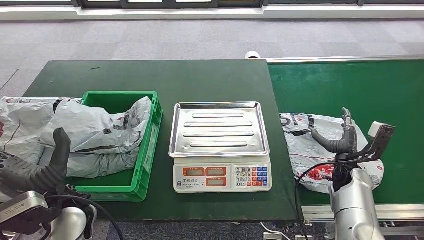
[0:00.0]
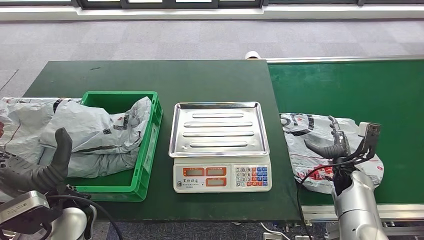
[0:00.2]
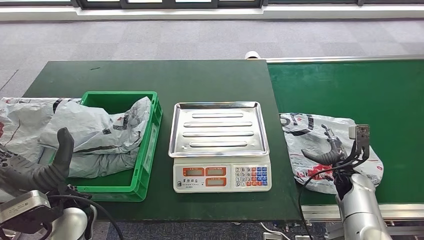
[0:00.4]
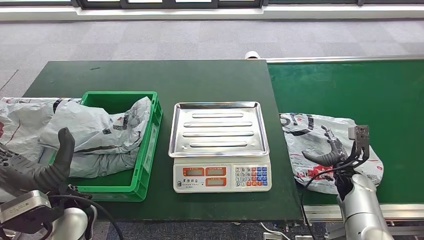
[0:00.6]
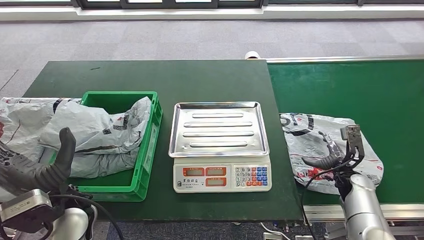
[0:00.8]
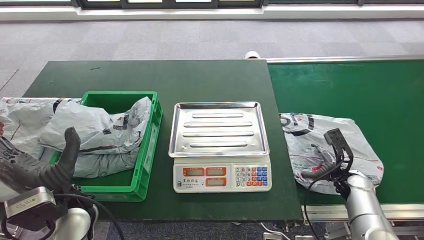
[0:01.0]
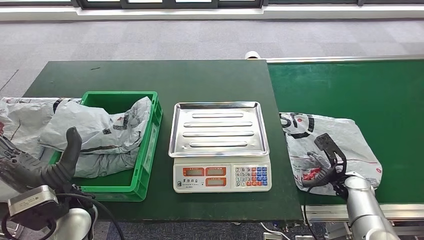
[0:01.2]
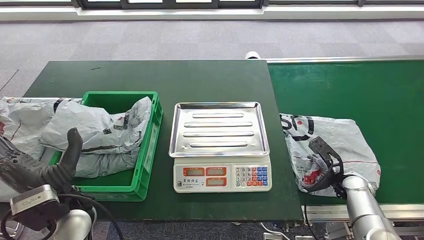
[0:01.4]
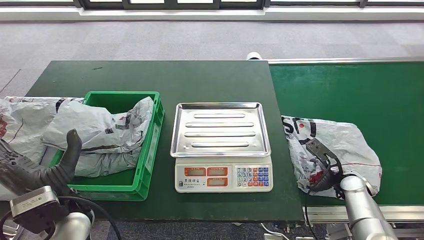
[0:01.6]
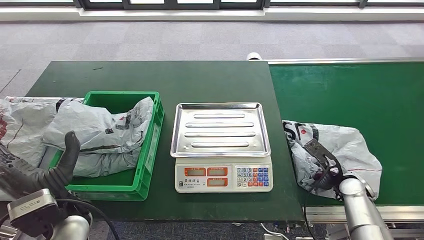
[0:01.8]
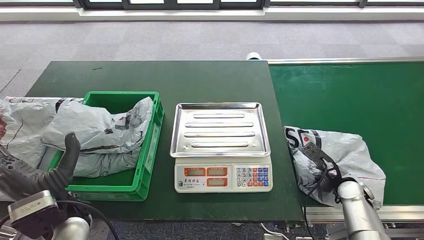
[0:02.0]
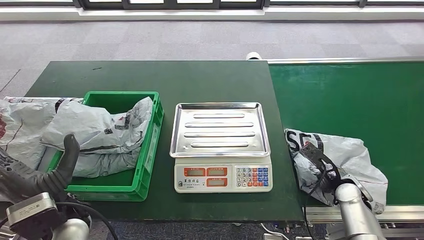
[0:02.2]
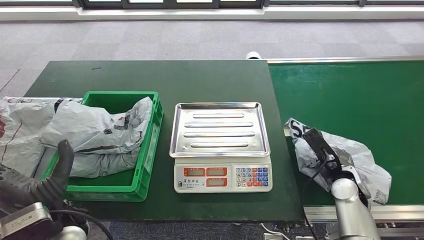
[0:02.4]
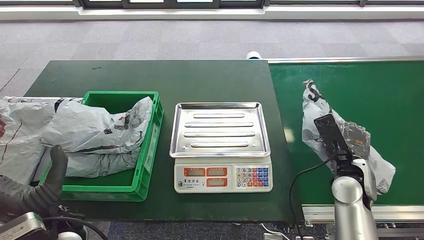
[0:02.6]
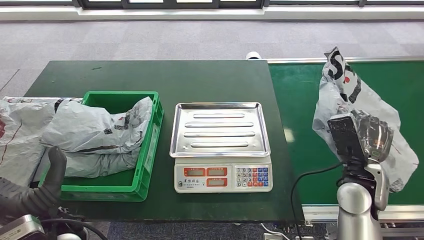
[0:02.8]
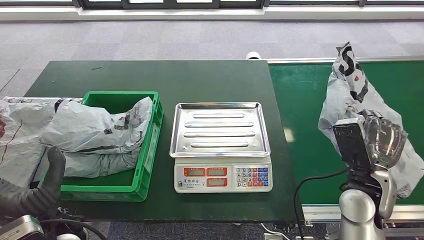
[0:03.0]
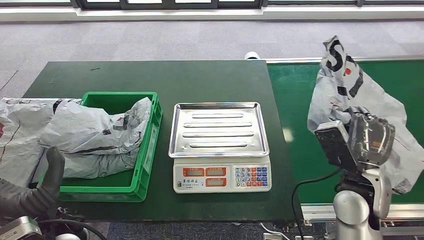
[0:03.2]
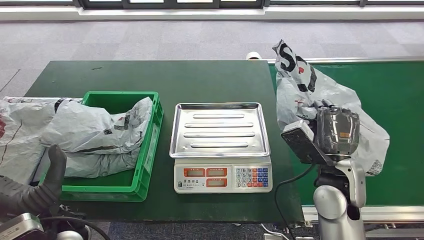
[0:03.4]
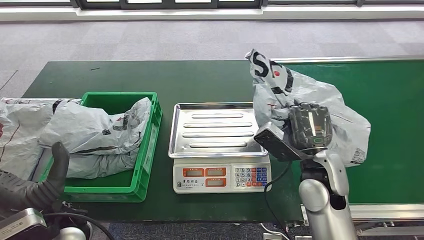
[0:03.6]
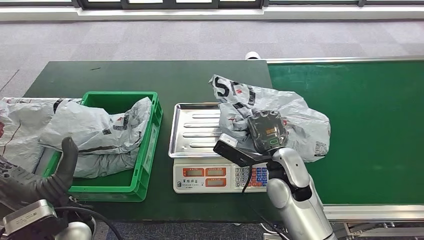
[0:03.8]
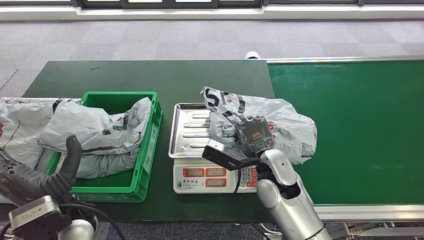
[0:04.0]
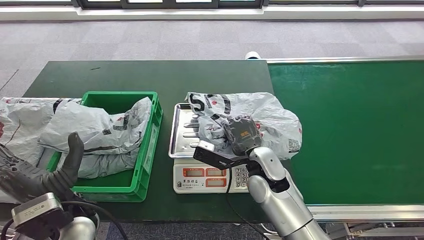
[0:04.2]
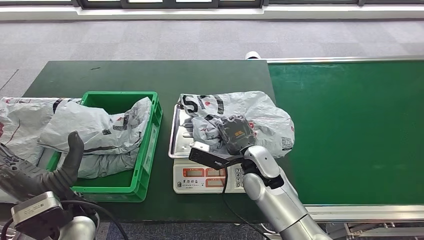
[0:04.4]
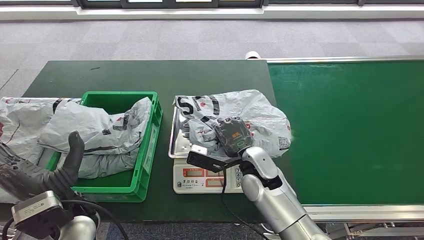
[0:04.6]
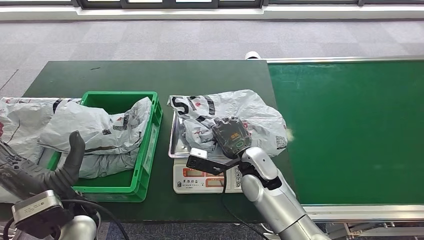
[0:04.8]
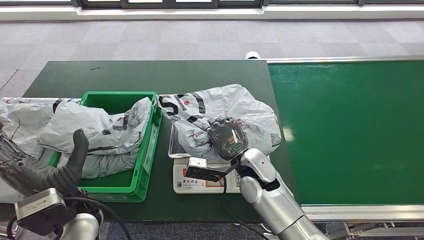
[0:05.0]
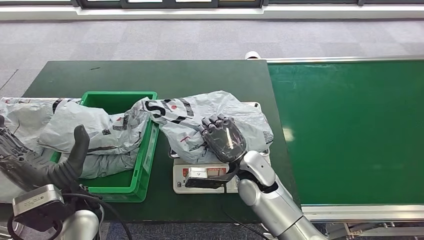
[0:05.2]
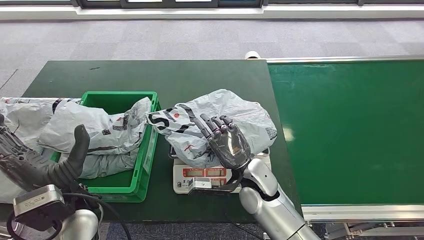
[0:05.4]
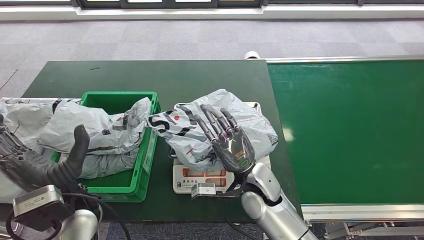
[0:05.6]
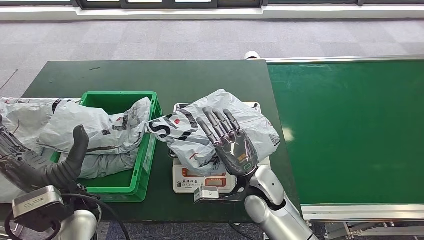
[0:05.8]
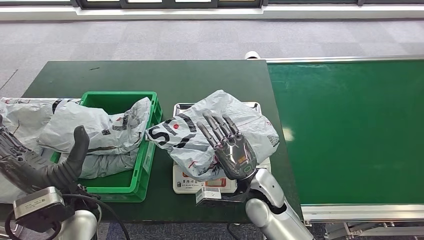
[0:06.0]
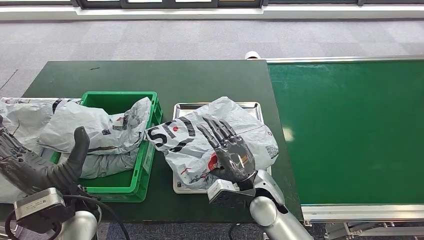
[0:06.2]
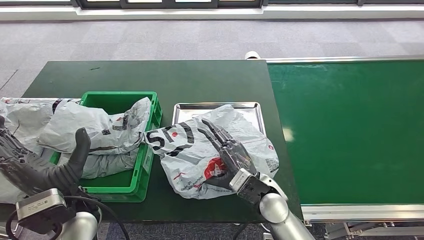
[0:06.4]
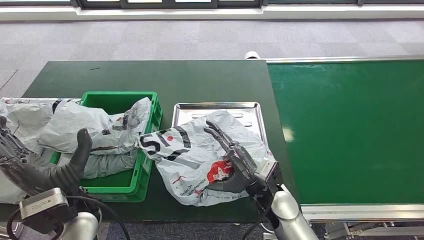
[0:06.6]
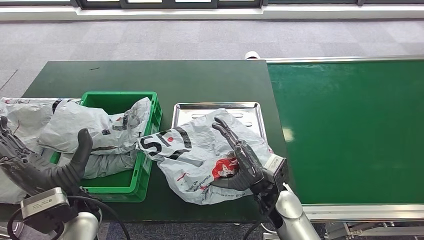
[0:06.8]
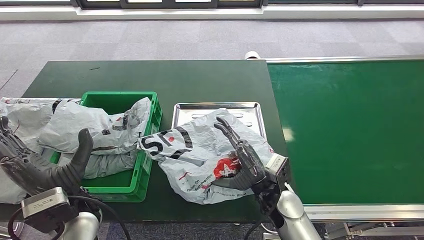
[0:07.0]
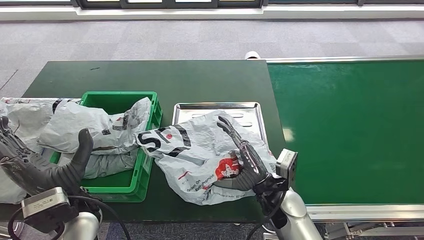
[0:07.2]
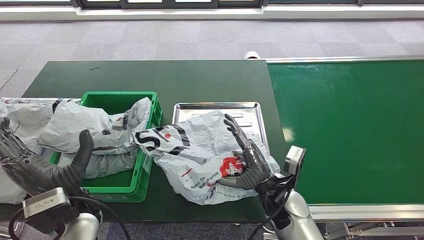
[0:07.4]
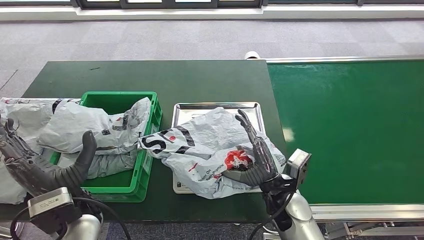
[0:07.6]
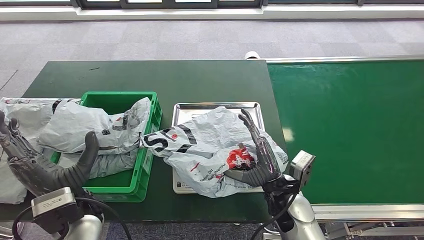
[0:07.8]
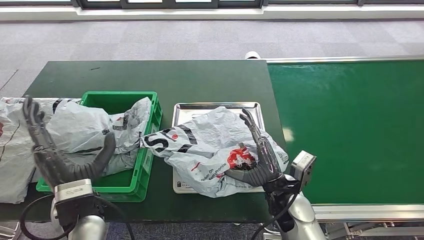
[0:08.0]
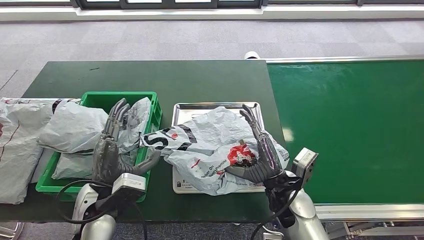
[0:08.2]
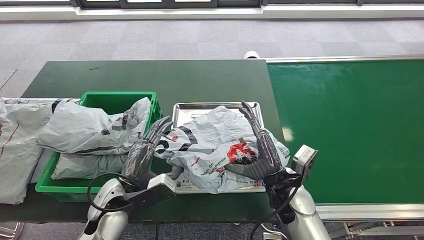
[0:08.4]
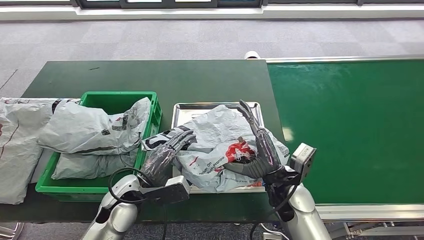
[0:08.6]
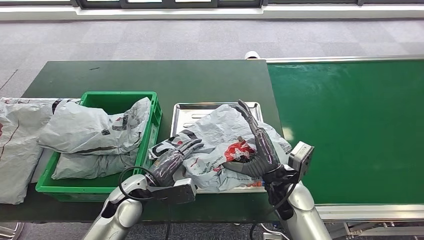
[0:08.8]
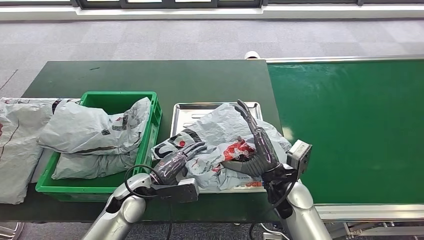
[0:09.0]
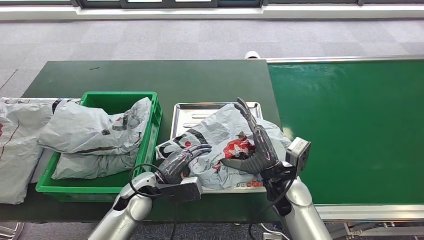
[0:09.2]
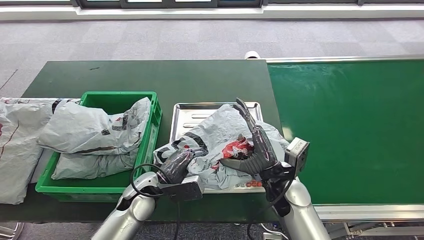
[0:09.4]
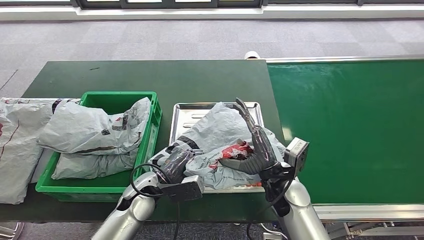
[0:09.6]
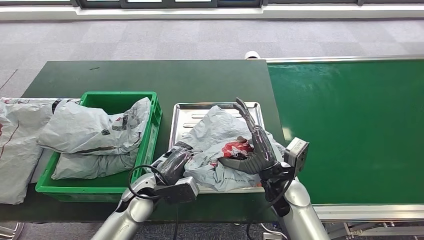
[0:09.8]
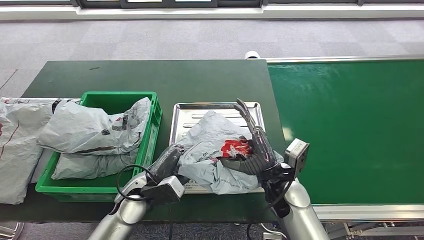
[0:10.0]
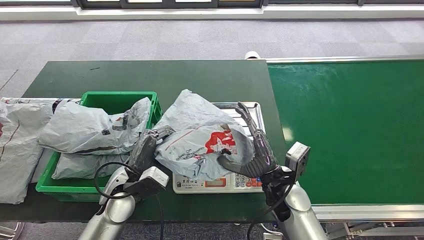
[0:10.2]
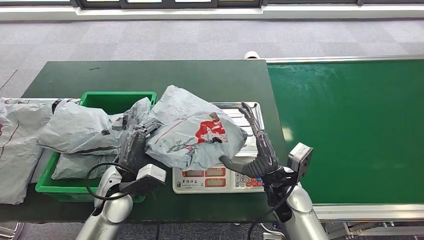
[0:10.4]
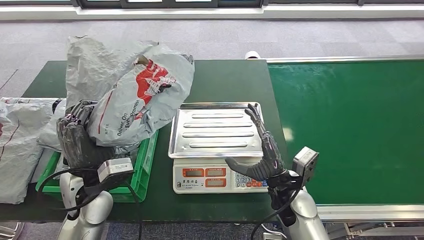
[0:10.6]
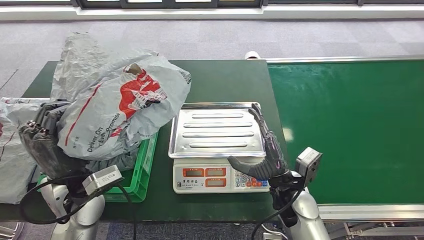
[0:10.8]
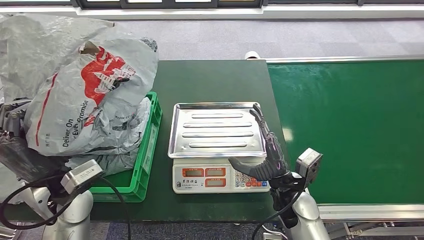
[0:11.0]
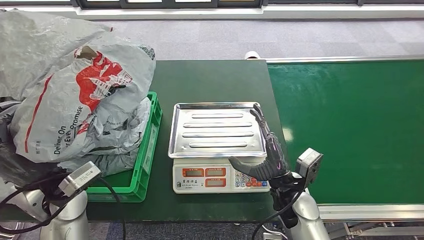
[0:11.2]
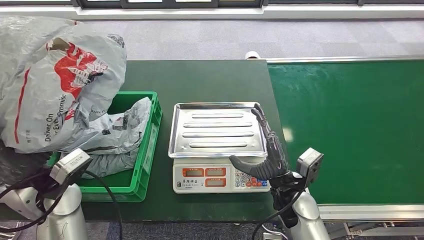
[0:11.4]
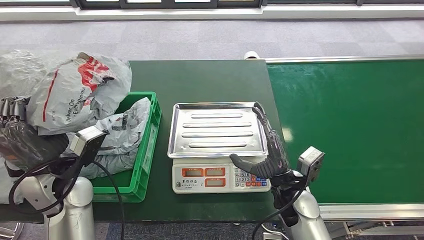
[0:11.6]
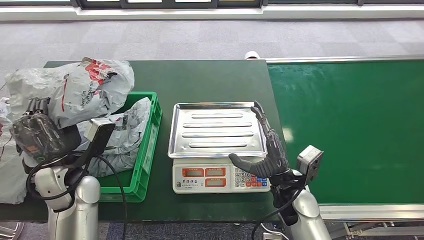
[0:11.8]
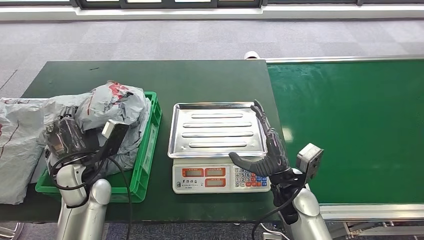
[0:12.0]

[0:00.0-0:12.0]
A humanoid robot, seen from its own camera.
Step, 0:00.0 to 0:03.6: Pick up the parcel from the conveyor belt.
Step, 0:03.8 to 0:08.6: Place the parcel onto the inbound machine.
0:04.4 to 0:06.0: The right hand is displaced backward by some 5 cm.
0:07.6 to 0:09.0: The left hand heads downward, forward and to the right, covering some 15 cm.
0:09.0 to 0:10.4: The left hand changes place by roughly 5 cm.

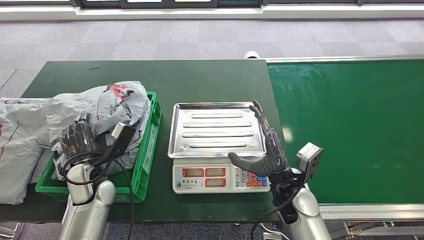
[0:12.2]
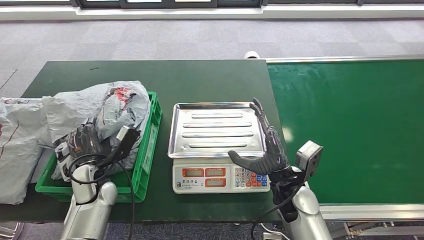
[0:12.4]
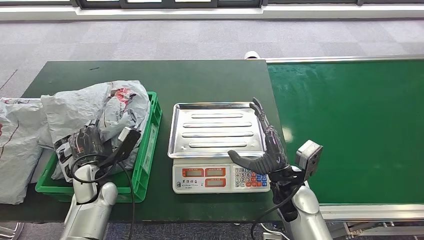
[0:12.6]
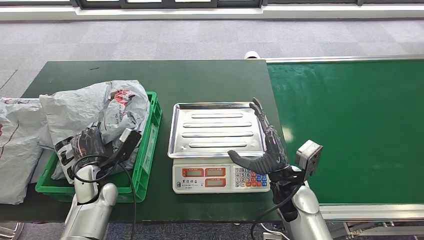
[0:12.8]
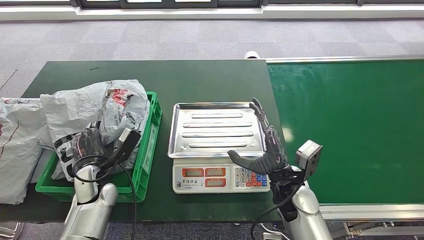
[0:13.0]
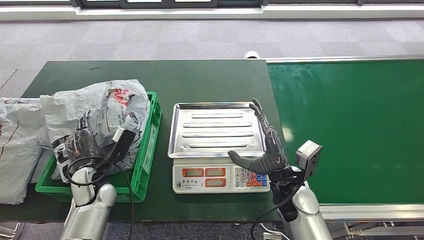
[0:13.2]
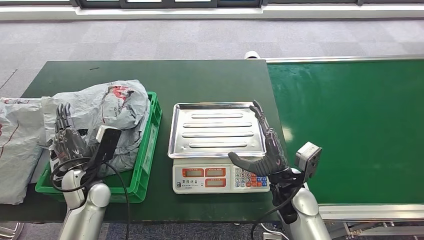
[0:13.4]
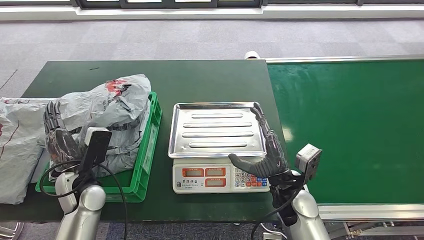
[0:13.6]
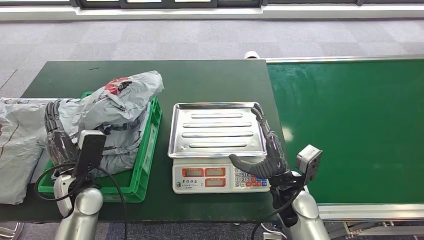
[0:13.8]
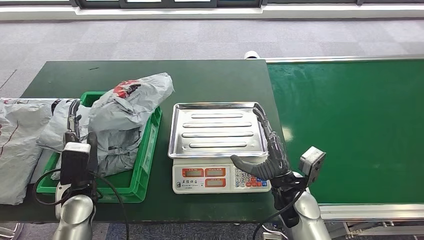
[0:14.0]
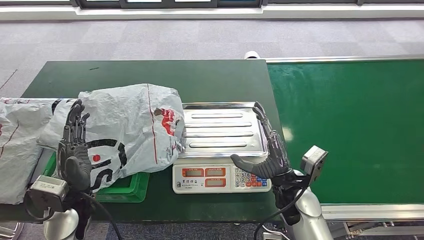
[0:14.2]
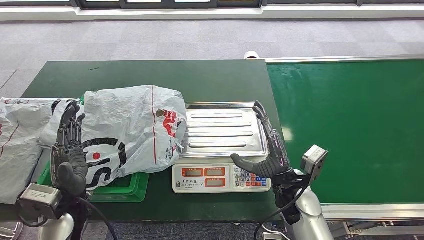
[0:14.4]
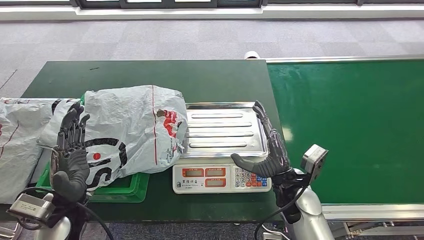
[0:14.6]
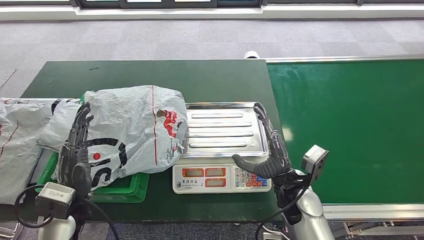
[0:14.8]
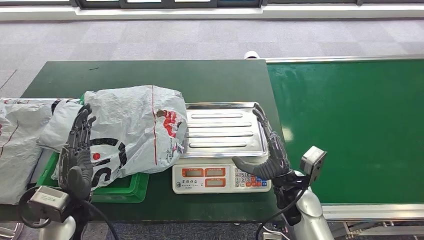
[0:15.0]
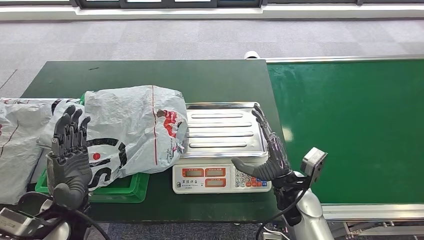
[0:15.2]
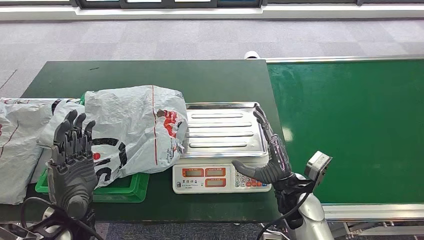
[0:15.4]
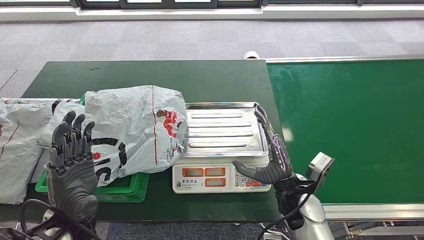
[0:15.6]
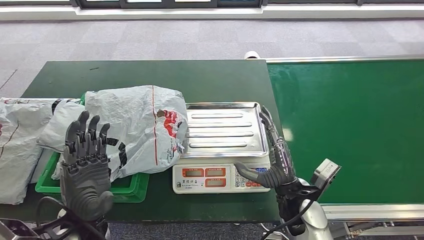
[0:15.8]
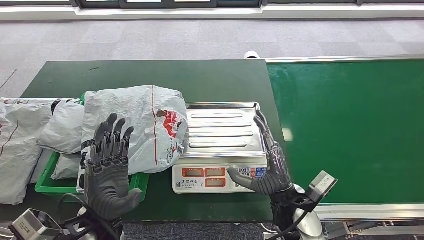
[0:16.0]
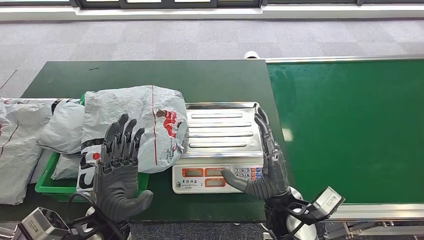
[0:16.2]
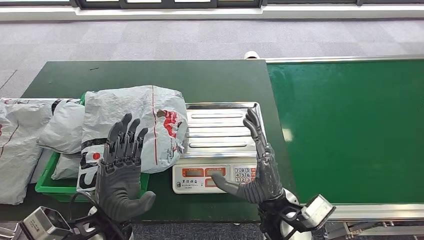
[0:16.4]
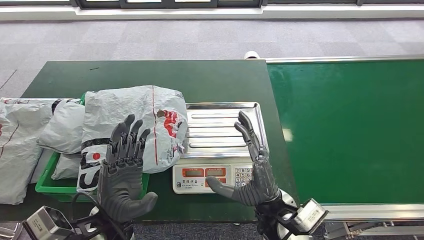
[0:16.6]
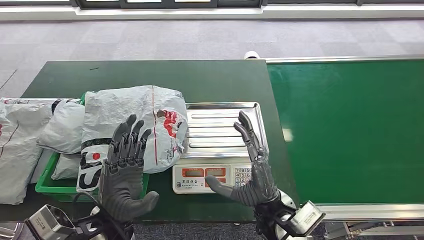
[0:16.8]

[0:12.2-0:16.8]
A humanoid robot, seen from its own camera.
Step, 0:12.2 to 0:14.2: Pick up the parcel from the inbound machine.
Step, 0:14.4 to 0:16.6: Place the parcel into the delivery box.
0:13.8 to 0:15.2: The left hand shifts roughly 5 cm backward.
0:15.2 to 0:16.8: The right hand travels to the left and backward by some 10 cm; the left hand travels to the right by approximately 10 cm.
